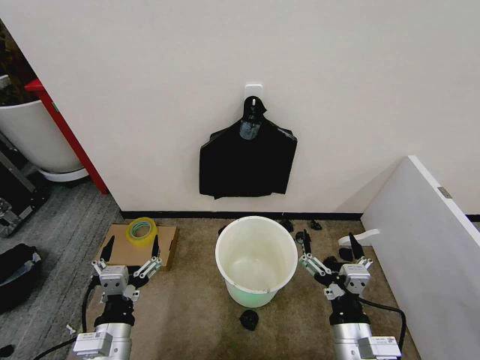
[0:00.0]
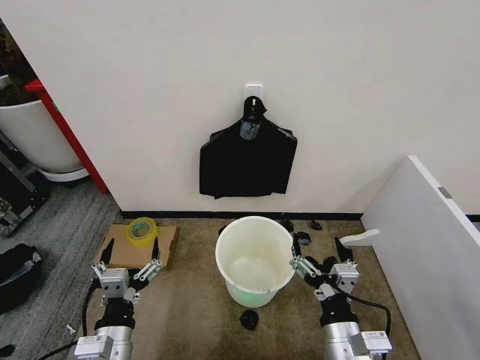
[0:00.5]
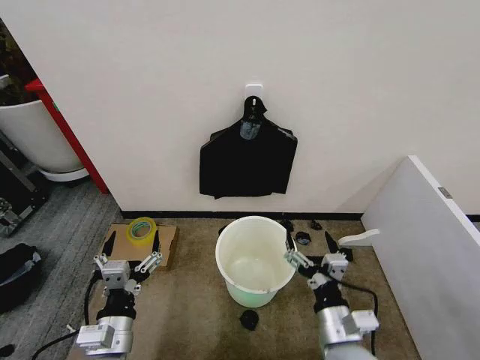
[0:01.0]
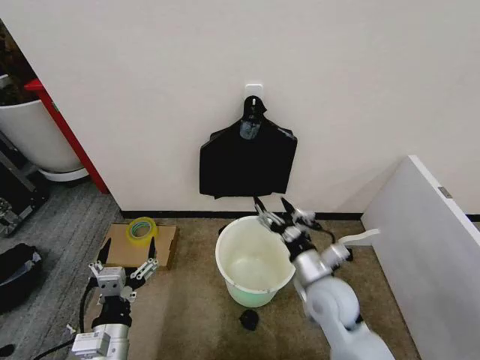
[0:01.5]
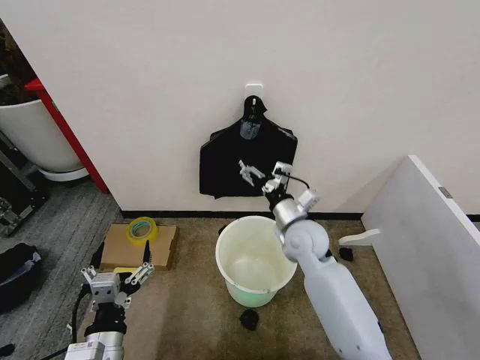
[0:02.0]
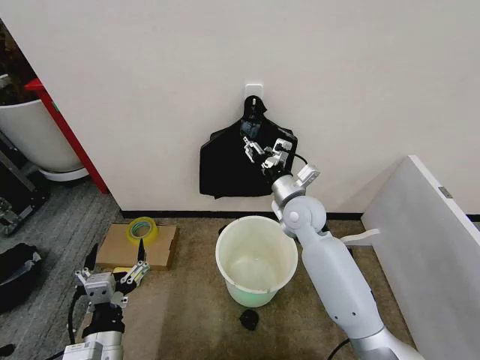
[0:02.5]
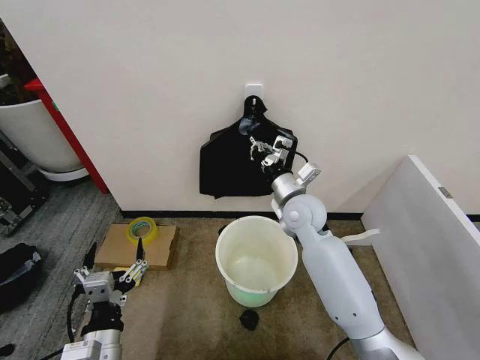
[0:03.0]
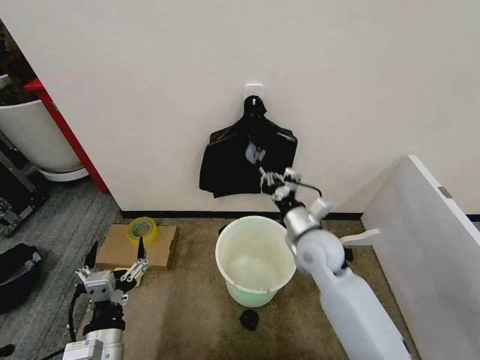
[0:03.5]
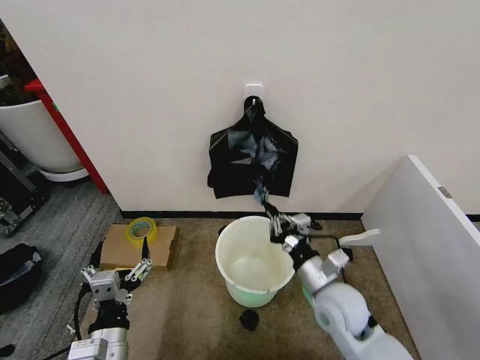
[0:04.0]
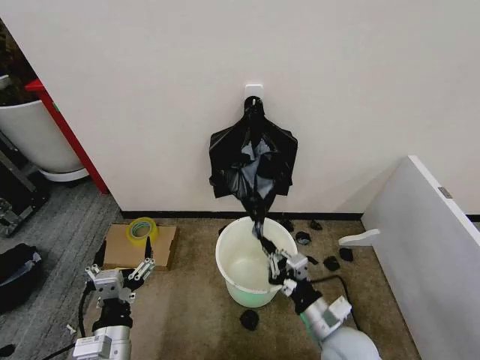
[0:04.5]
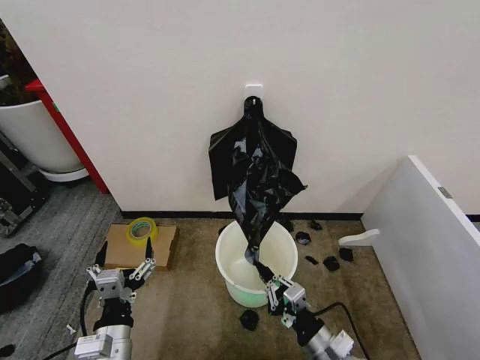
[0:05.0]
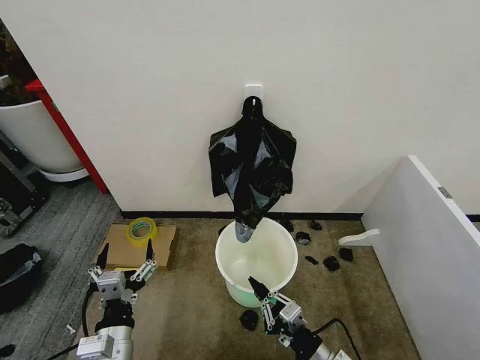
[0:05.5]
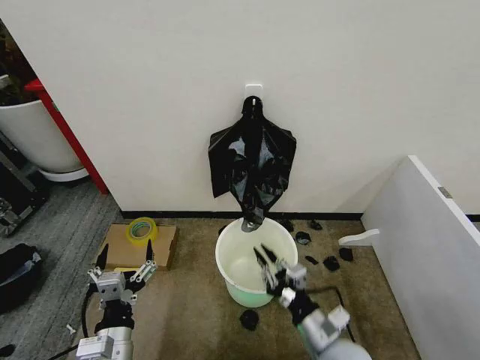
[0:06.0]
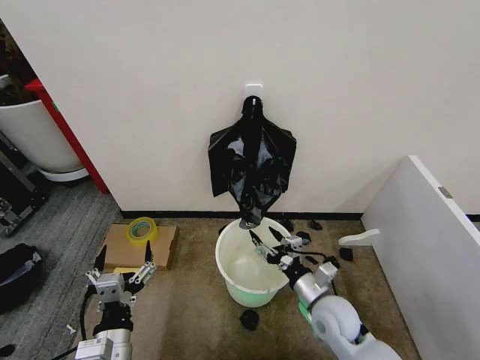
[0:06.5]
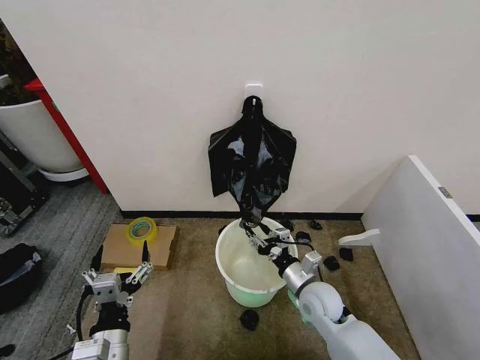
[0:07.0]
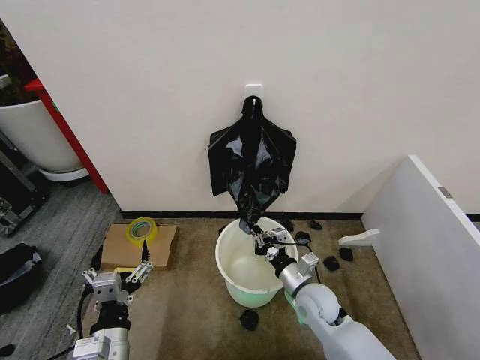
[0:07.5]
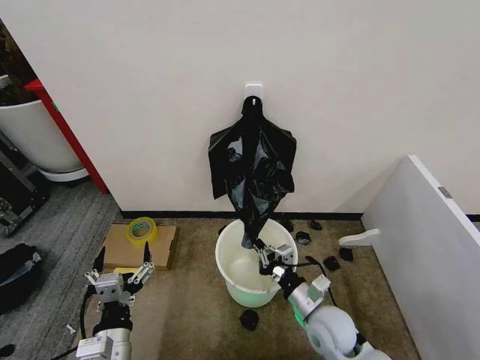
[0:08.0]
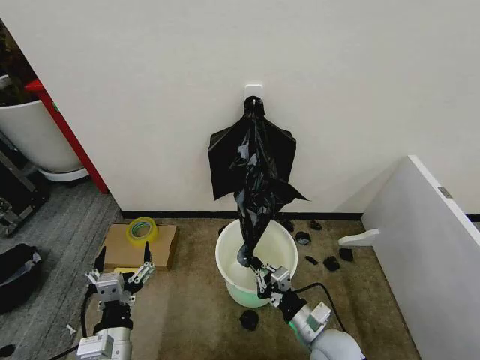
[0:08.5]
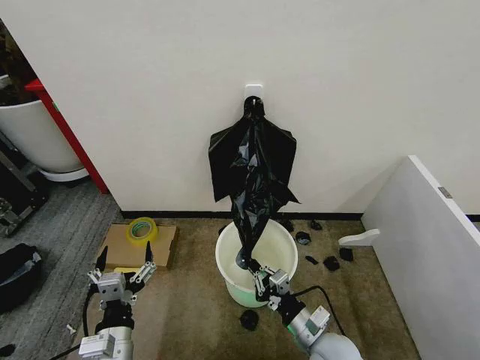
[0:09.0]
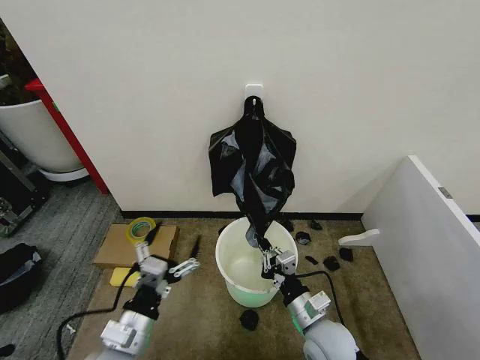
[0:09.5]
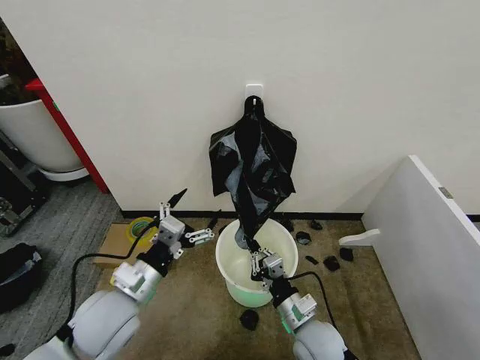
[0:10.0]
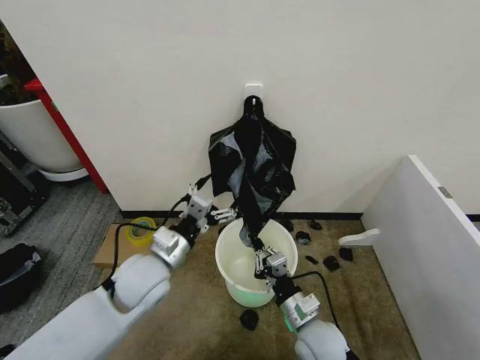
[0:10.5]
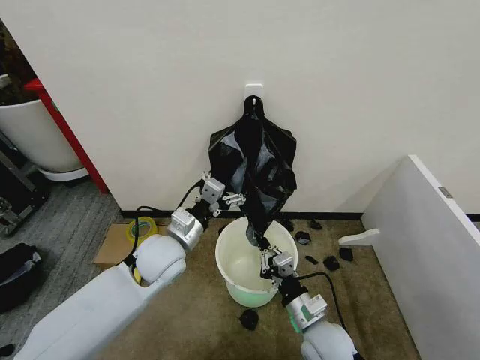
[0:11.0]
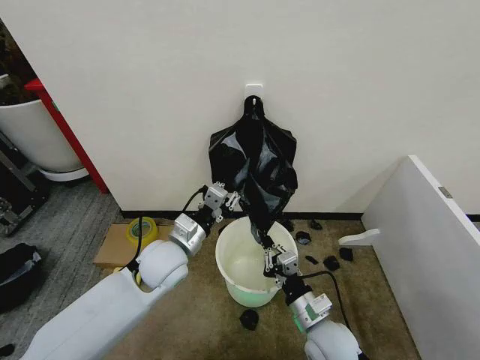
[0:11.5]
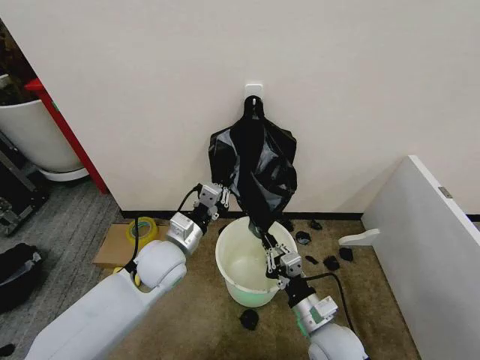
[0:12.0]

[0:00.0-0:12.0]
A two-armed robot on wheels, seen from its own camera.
Task of the whole recording: Place the garbage bag over the trash bin.
0:02.0 to 0:04.0: The right gripper heads backward, covering about 15 cm, and closes up.
0:04.0 to 0:06.0: The right gripper shifts some 10 cm backward.
0:06.0 to 0:08.0: The right gripper shifts about 5 cm forward, and opens and closes again.
0:08.0 to 0:10.0: The left gripper shifts roughly 15 cm forward and upward.
0:10.0 to 0:12.0: The left gripper is displaced forward and to the right by approximately 10 cm, and closes its fingers.

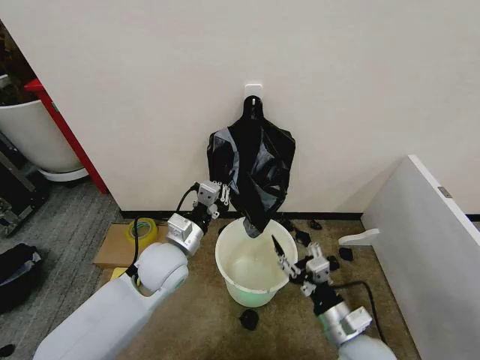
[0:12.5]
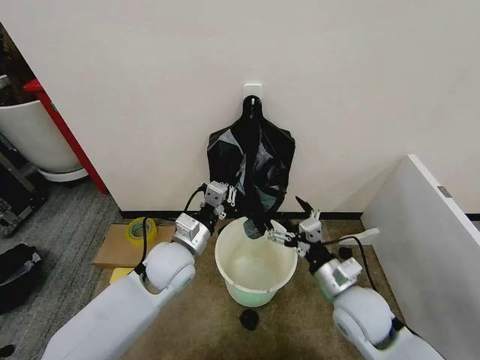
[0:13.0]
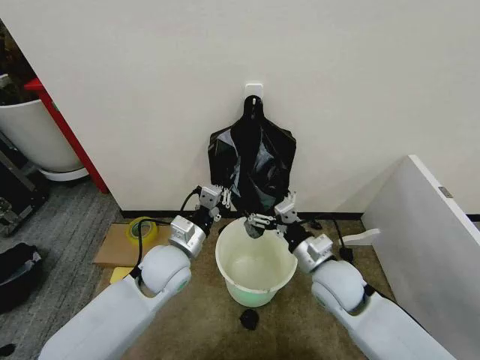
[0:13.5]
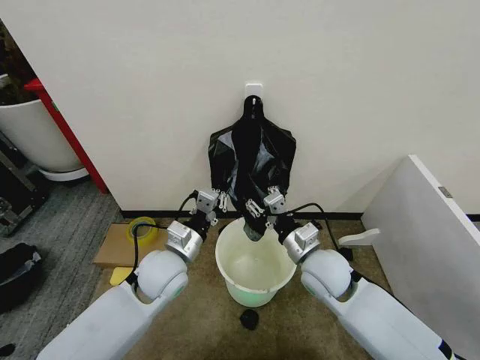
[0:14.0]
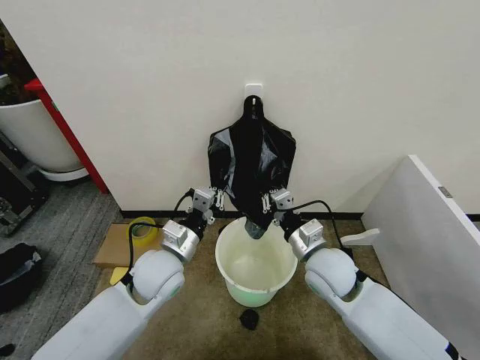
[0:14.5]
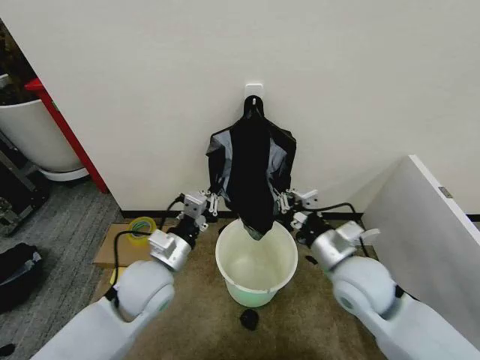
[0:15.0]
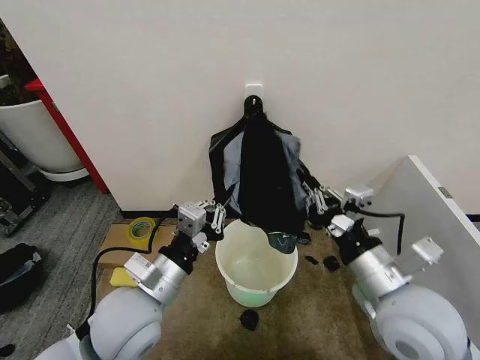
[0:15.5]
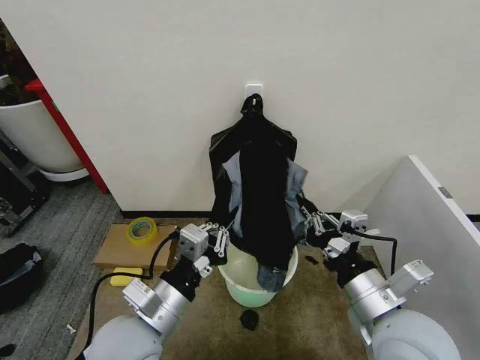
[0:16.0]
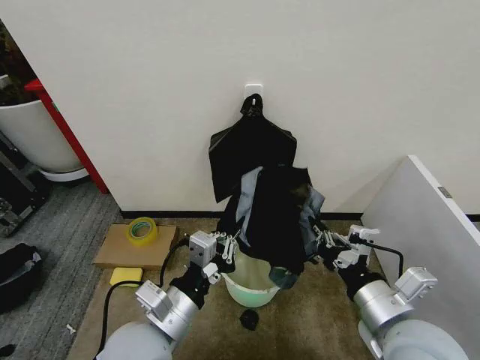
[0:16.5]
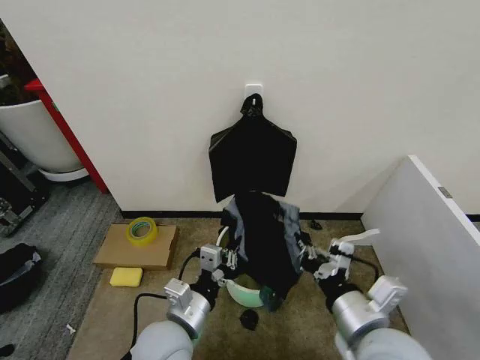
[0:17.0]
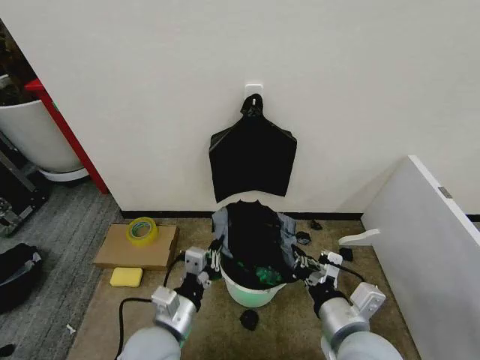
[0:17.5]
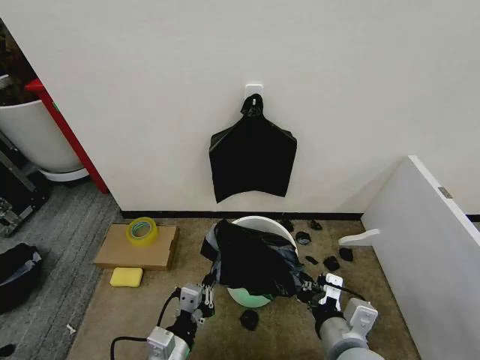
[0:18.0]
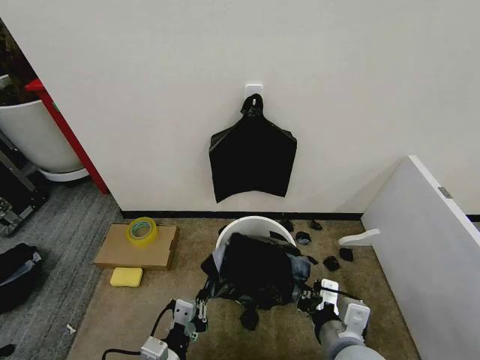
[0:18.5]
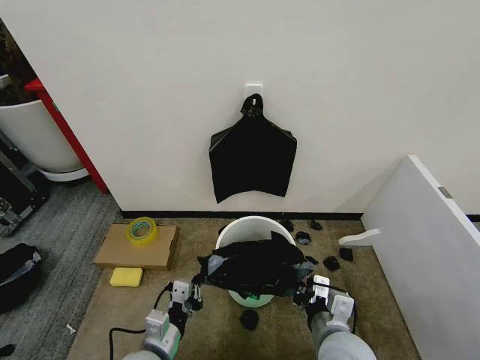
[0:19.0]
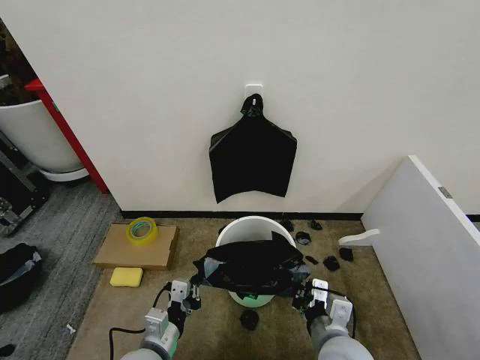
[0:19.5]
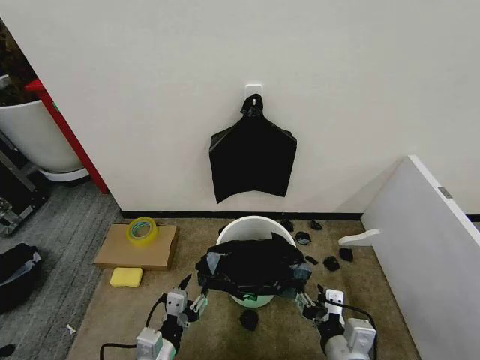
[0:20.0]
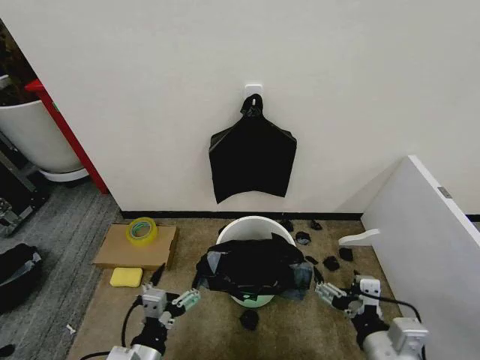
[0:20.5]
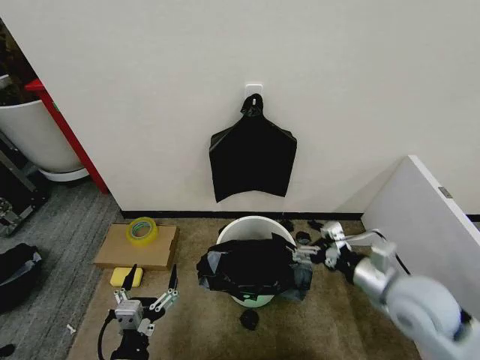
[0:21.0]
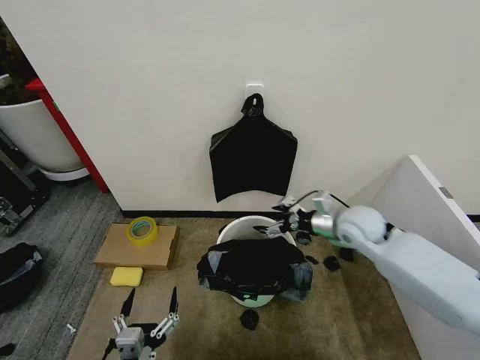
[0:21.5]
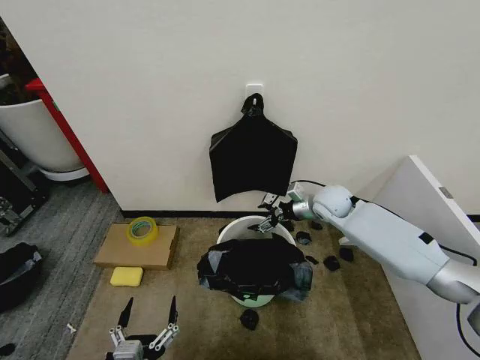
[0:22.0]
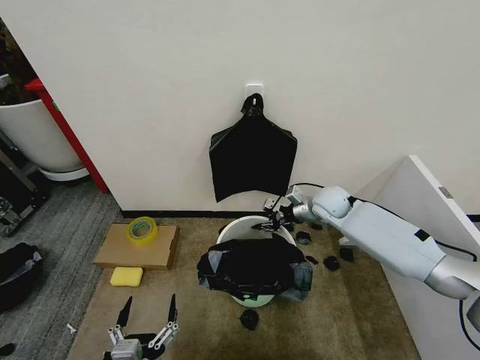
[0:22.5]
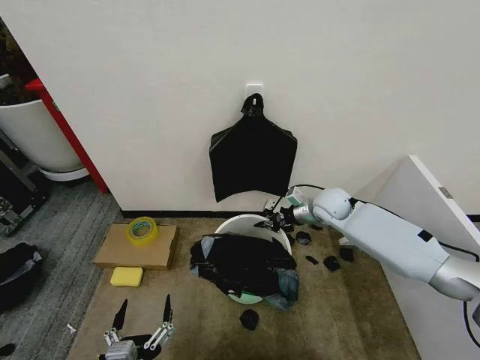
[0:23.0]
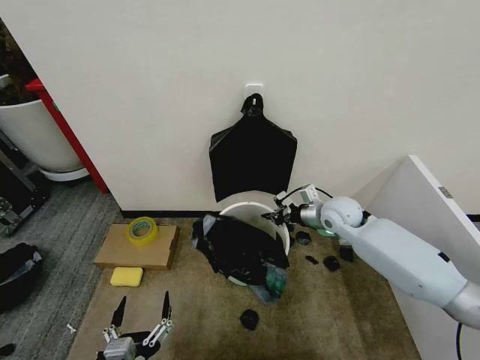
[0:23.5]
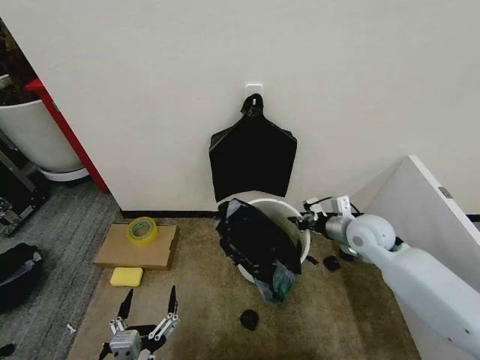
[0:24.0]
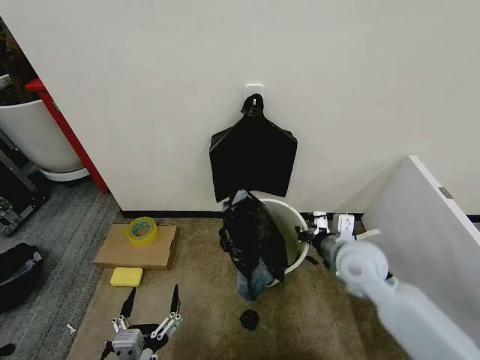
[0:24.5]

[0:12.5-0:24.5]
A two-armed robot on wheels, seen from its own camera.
Task of the whole recording: Place the garbage bag over the trash bin.
0:12.5 to 0:14.5: The right gripper travels forward and upward by roughly 15 cm, and closes up.
0:14.5 to 0:16.5: The right gripper travels backward and upward by roughly 15 cm. The left gripper shifts about 15 cm backward.
0:16.5 to 0:18.5: The left gripper heads downward and backward, covering approximately 15 cm. Meanwhile the right gripper moves downward and to the left, some 10 cm.
0:18.5 to 0:20.5: The left gripper opens up; the right gripper shifts some 5 cm to the right, and opens.
0:20.5 to 0:22.5: The right gripper shifts some 40 cm forward, and closes its fingers; the left gripper moves backward, approximately 10 cm.
0:22.5 to 0:24.5: The right gripper is displaced backward by approximately 20 cm, and closes up.

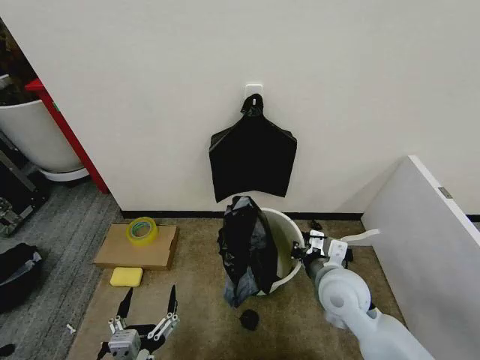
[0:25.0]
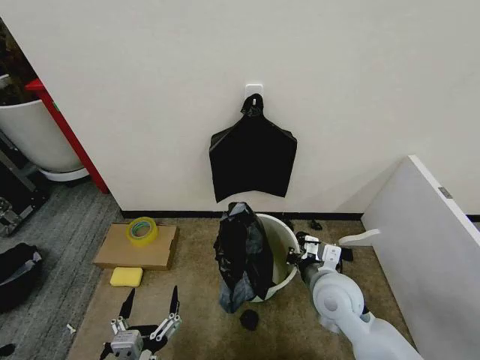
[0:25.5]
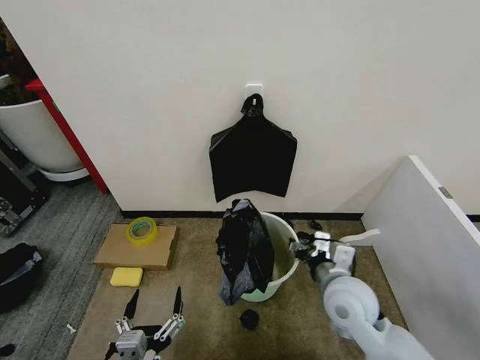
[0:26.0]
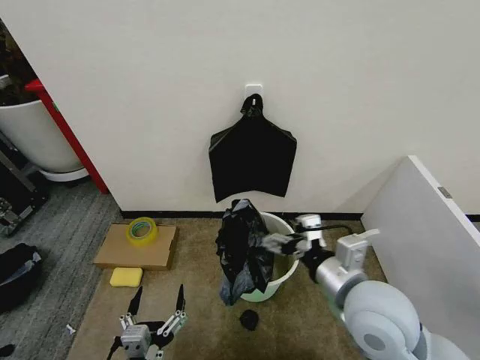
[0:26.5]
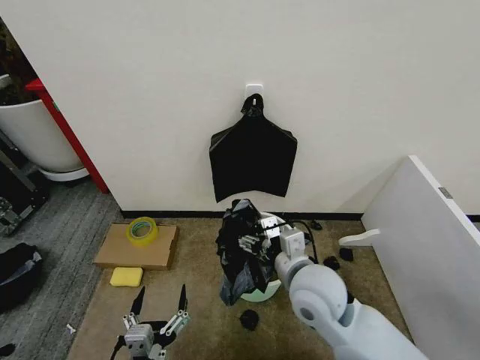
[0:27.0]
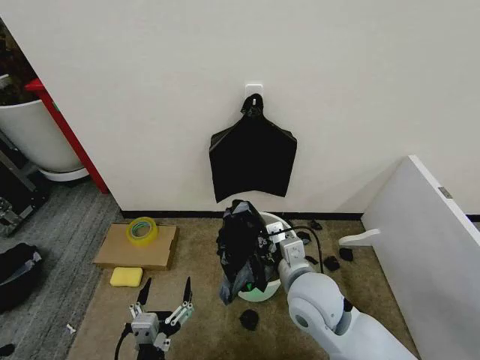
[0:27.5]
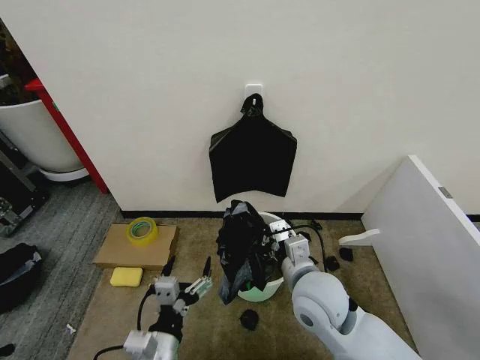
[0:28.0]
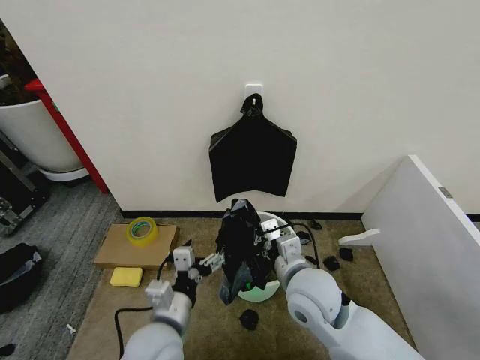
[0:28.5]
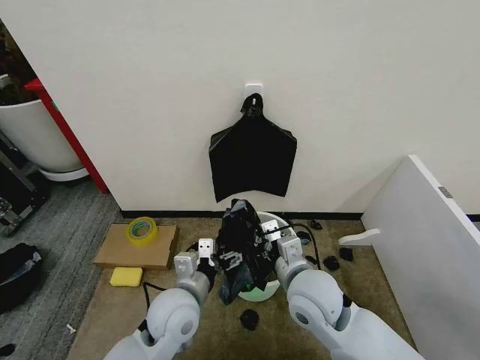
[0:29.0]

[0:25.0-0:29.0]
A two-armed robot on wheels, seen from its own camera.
Task of the whole recording: Place the garbage bag over the trash bin.
0:25.0 to 0:27.0: The right gripper heads to the left, covering about 5 cm, and opens its fingers.
0:27.0 to 0:29.0: The left gripper travels forward by about 20 cm; the right gripper closes up.
